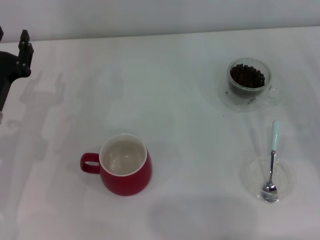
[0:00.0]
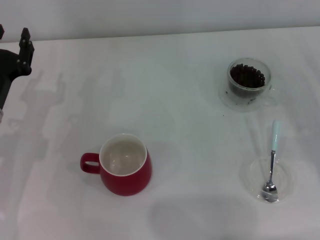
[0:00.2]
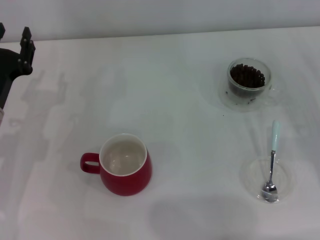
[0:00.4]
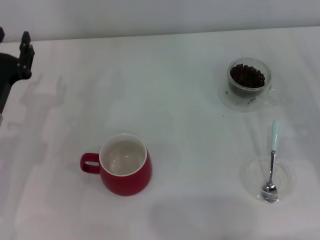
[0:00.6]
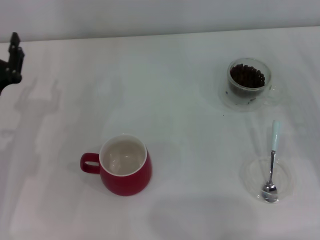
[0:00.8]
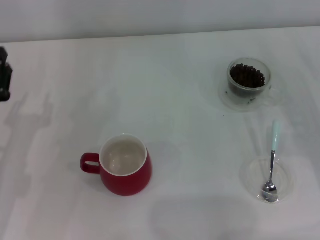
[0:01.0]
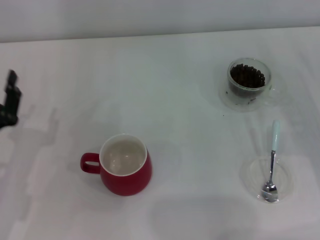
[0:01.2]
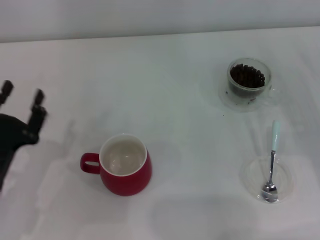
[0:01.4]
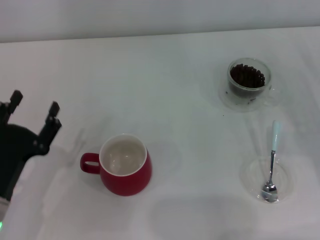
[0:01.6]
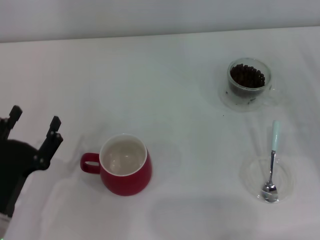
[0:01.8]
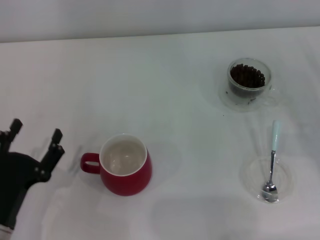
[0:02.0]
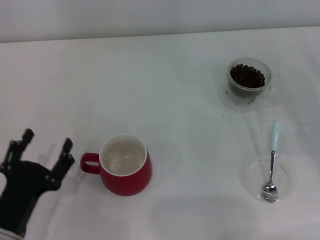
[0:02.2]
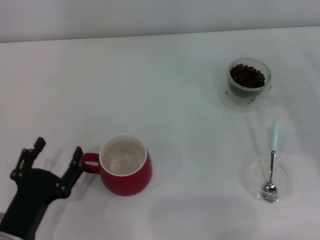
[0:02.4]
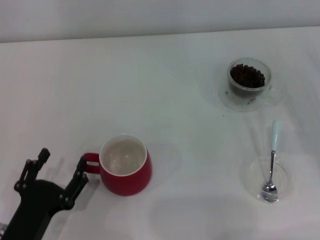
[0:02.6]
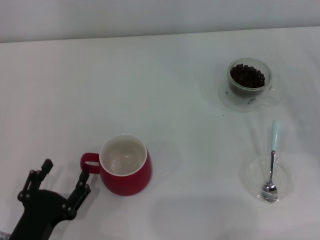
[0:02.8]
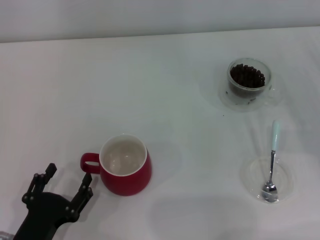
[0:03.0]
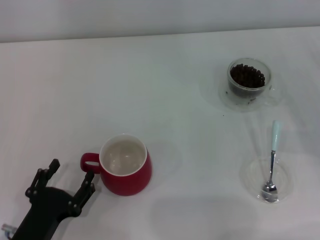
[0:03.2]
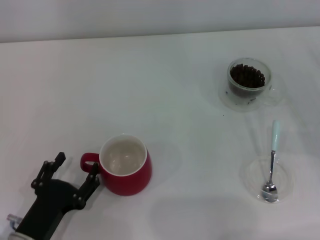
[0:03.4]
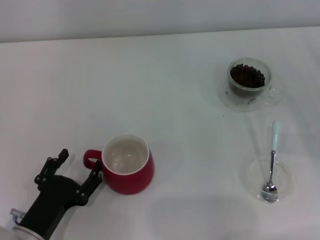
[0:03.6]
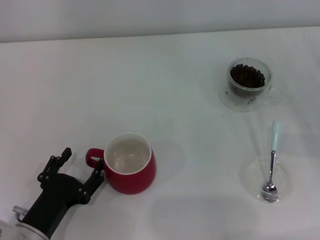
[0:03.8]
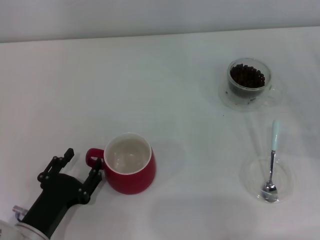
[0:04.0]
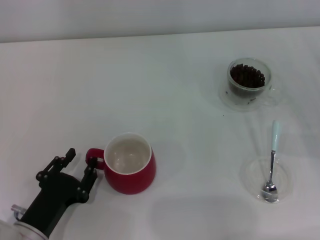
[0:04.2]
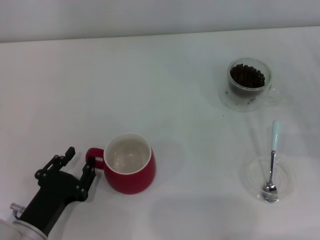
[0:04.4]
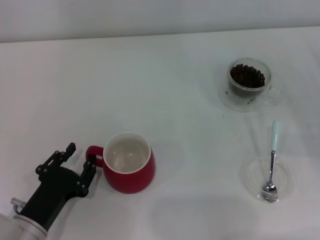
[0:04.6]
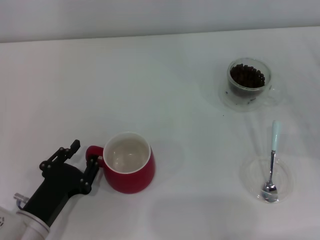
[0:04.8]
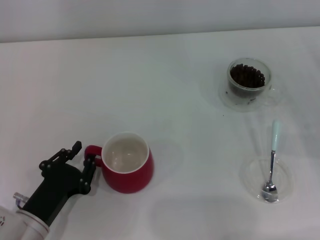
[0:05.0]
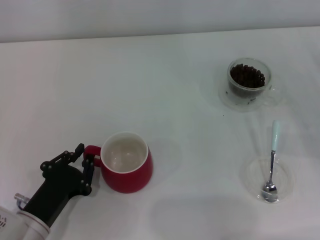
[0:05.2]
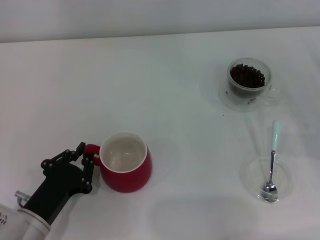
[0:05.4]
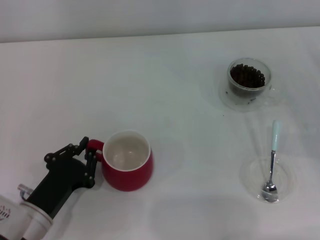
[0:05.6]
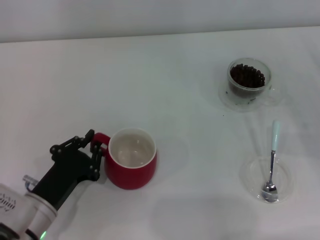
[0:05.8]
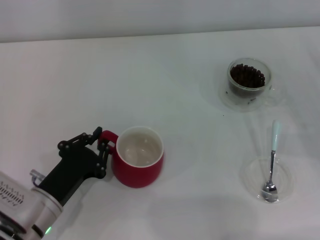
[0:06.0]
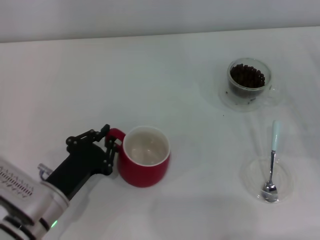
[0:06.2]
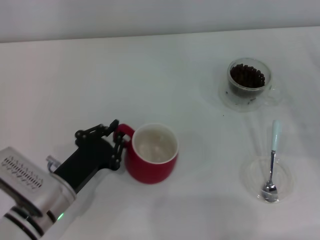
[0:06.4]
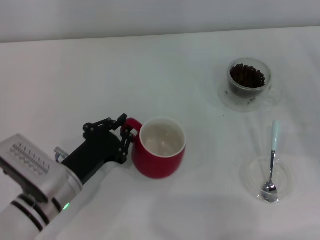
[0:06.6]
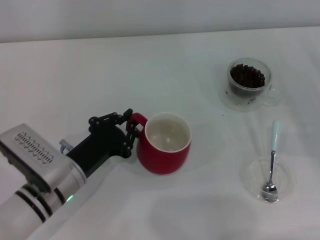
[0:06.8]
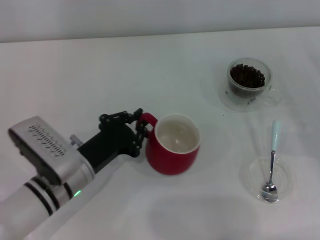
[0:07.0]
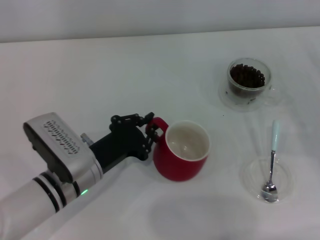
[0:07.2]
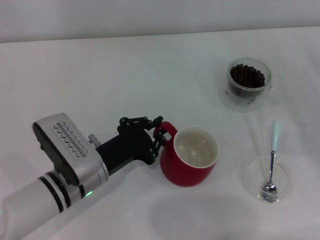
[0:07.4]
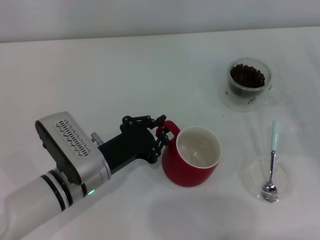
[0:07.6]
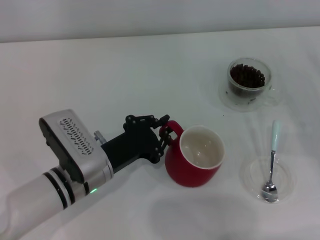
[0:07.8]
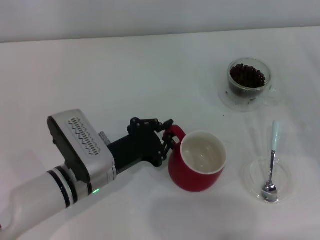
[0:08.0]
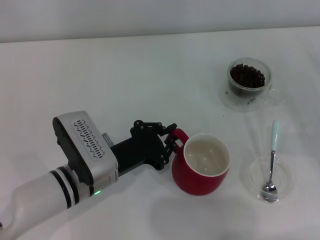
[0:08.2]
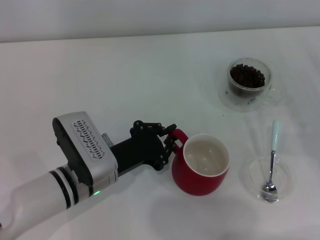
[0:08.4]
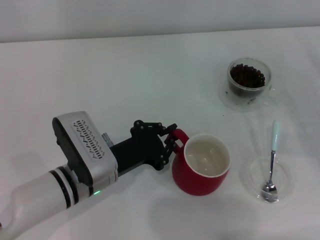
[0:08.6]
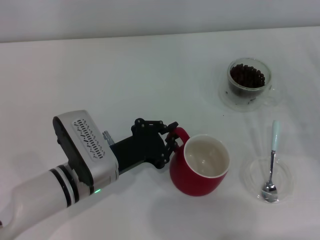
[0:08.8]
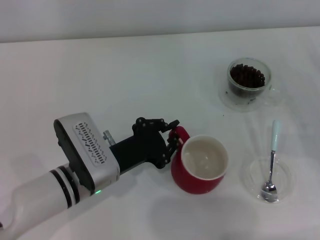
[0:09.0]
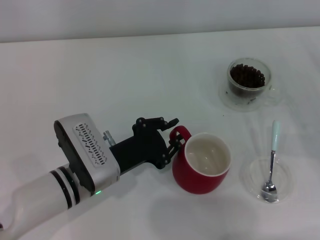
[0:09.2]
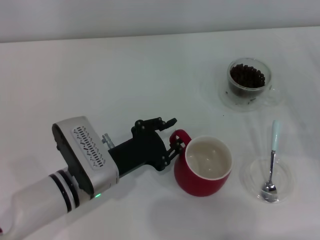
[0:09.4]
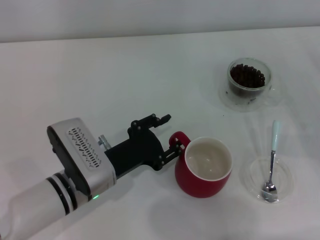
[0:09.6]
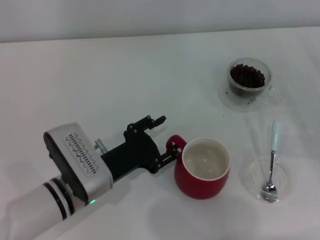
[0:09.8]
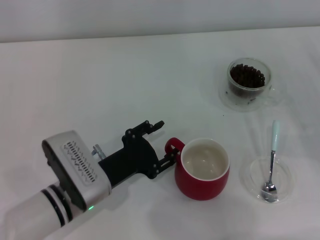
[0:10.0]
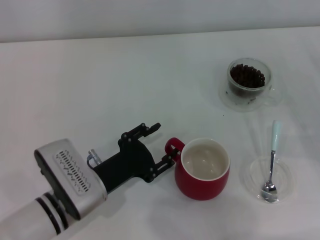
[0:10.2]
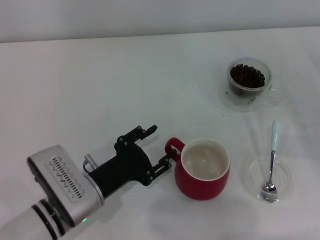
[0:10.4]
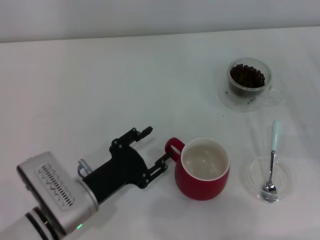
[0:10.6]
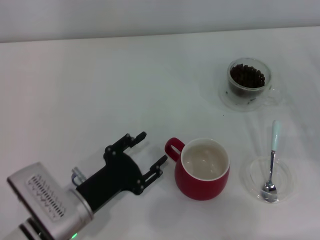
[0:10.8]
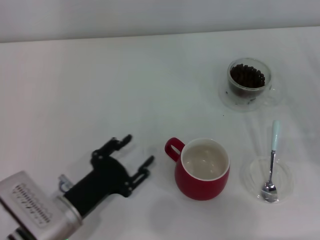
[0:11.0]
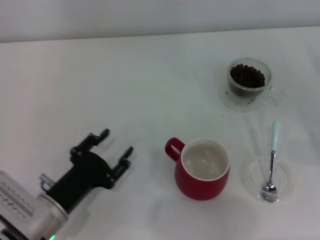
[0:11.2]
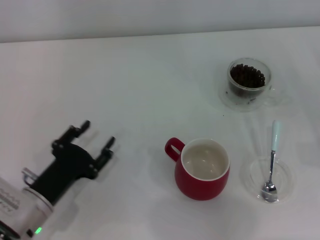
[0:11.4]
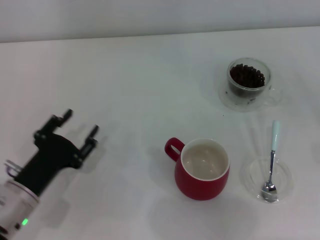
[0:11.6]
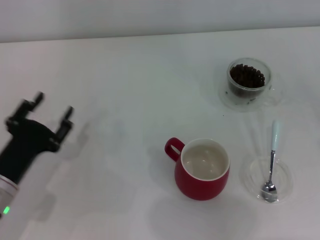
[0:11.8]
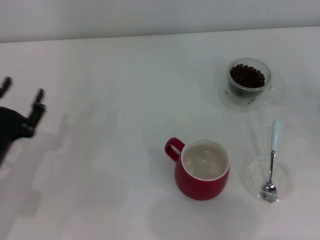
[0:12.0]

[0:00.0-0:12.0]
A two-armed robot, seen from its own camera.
Task of the whole recording: Use a blue spoon to take out the coffee beans from the glass and pour them into the red cup.
Step, 0:00.0 to 0:10.8: Move the cup to the center of view with the left gripper.
0:00.0 to 0:01.6: The left gripper travels backward by some 10 cm.
0:01.6 to 0:03.0: The left gripper heads backward, covering some 5 cm.
0:03.0 to 0:04.4: The left gripper closes its fingers.
0:04.4 to 0:06.0: The left gripper closes.
0:06.0 to 0:07.6: The left gripper is displaced to the right and forward by roughly 10 cm.
0:07.6 to 0:09.0: The grippers stay close to where they were, moving slightly.
0:09.0 to 0:10.4: The left gripper opens.
0:10.4 to 0:12.0: The right gripper shifts by about 5 cm. The left gripper travels to the left by some 10 cm.

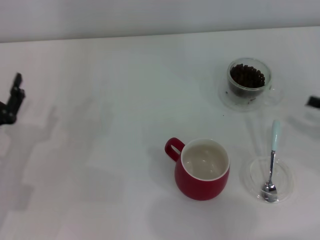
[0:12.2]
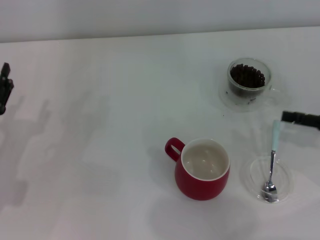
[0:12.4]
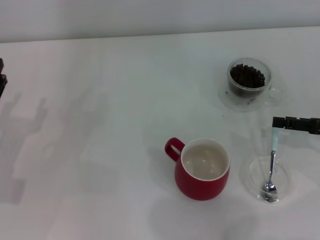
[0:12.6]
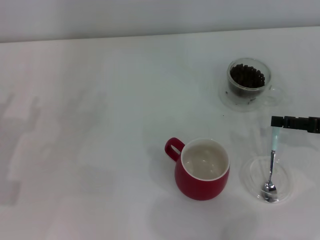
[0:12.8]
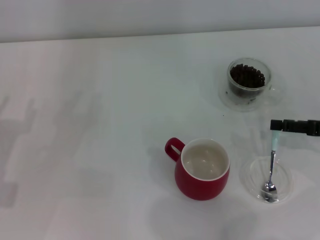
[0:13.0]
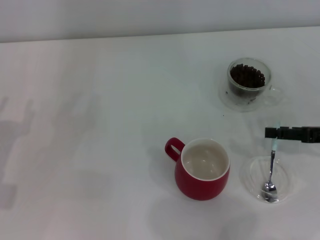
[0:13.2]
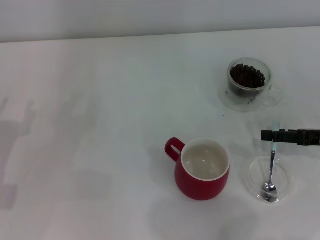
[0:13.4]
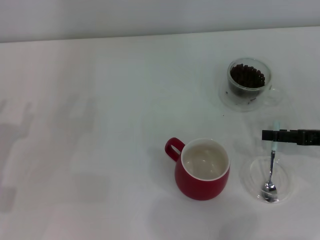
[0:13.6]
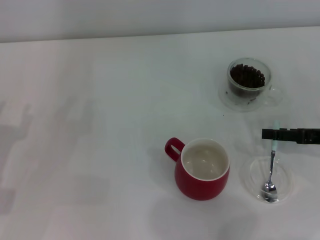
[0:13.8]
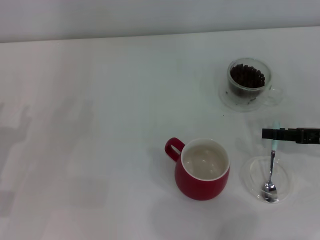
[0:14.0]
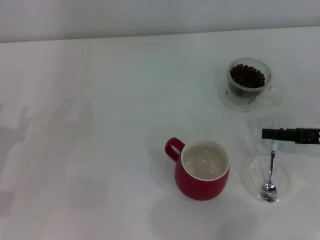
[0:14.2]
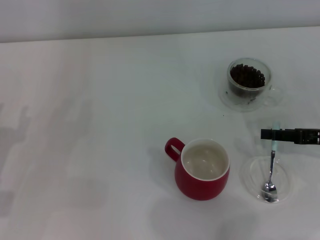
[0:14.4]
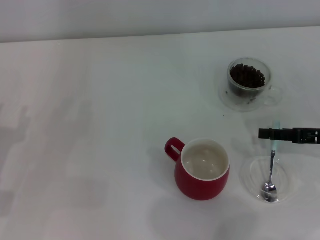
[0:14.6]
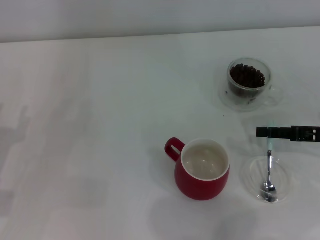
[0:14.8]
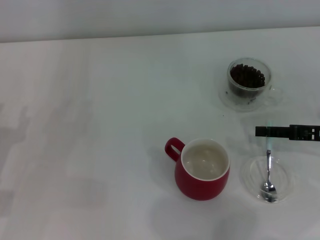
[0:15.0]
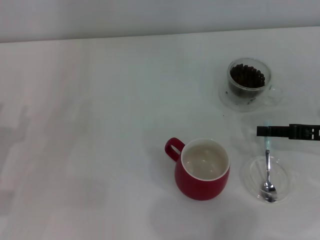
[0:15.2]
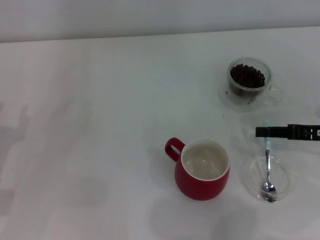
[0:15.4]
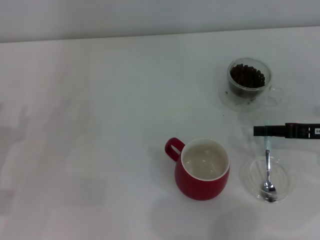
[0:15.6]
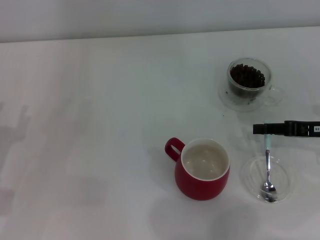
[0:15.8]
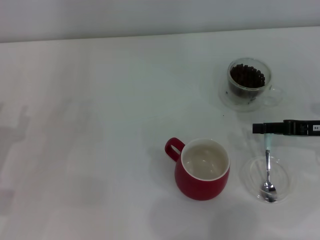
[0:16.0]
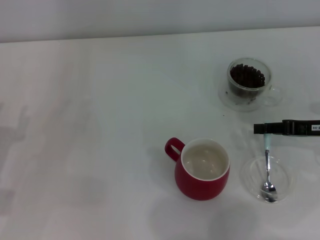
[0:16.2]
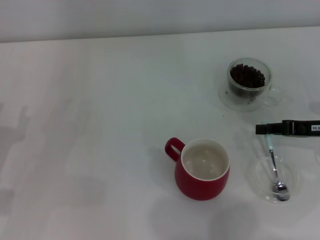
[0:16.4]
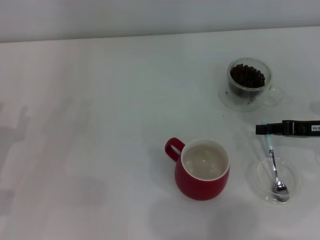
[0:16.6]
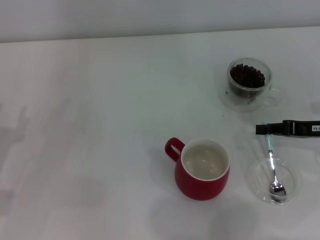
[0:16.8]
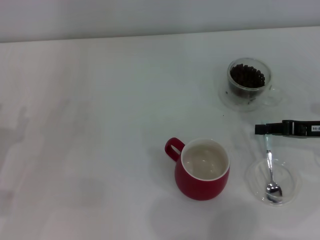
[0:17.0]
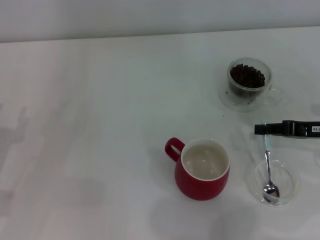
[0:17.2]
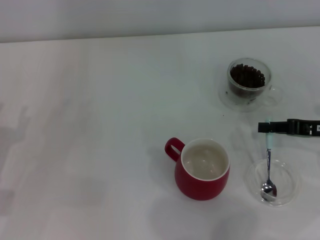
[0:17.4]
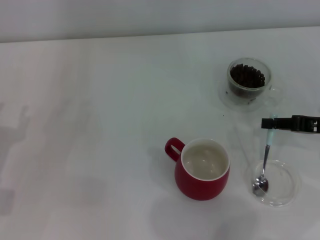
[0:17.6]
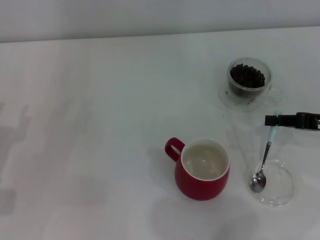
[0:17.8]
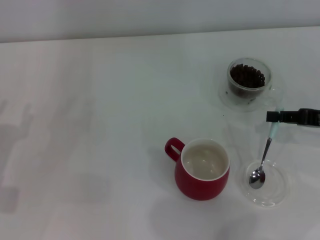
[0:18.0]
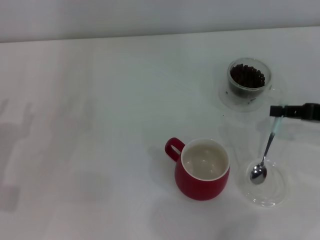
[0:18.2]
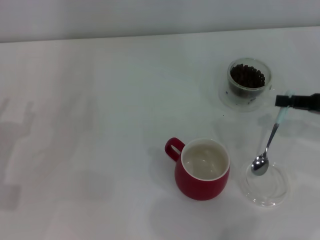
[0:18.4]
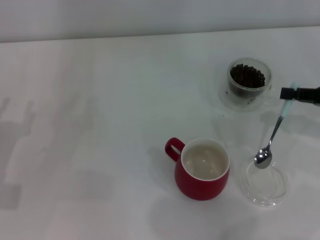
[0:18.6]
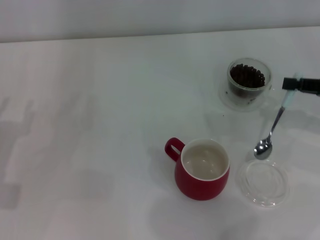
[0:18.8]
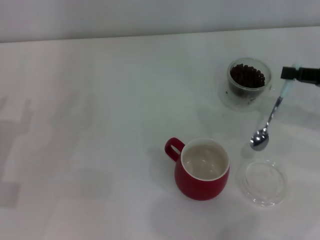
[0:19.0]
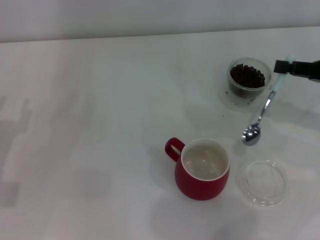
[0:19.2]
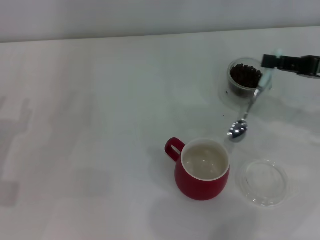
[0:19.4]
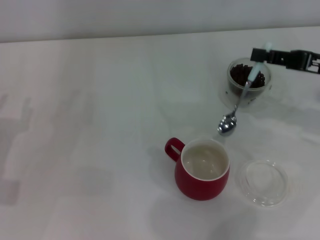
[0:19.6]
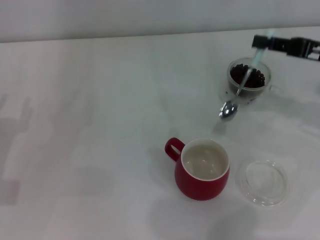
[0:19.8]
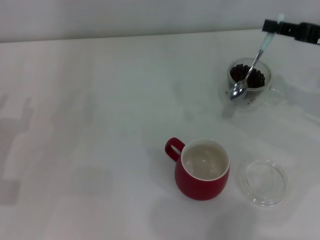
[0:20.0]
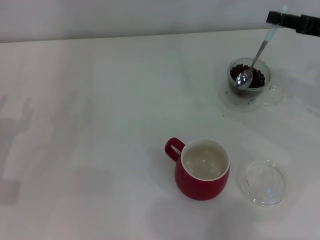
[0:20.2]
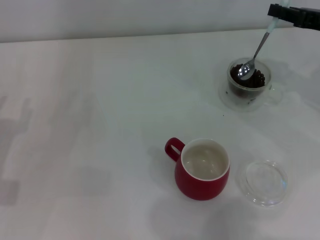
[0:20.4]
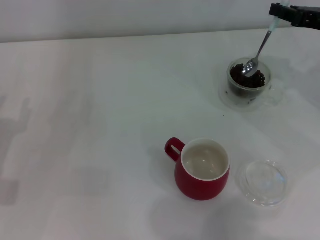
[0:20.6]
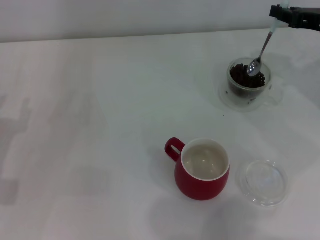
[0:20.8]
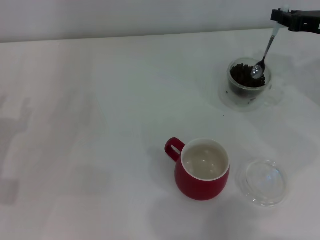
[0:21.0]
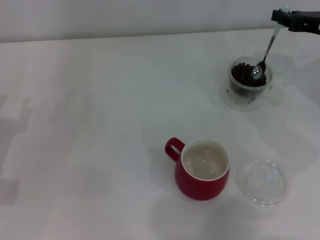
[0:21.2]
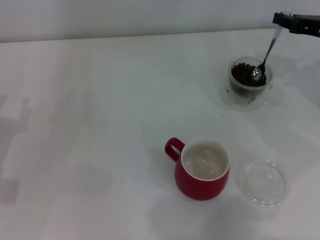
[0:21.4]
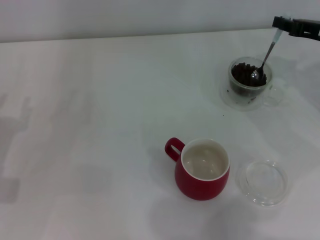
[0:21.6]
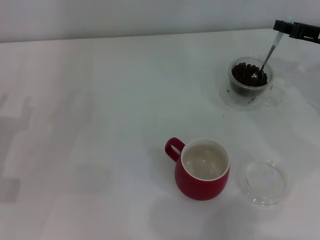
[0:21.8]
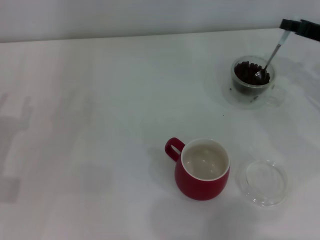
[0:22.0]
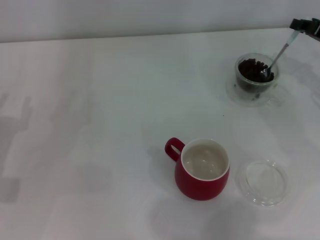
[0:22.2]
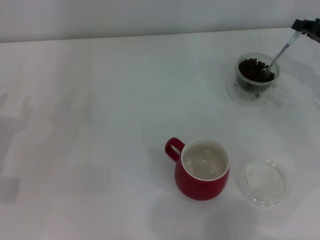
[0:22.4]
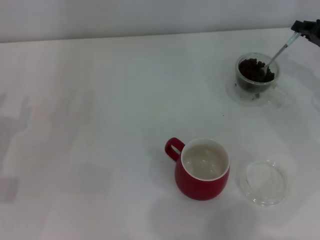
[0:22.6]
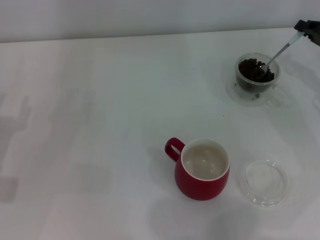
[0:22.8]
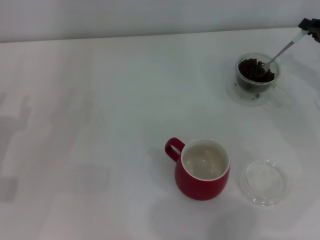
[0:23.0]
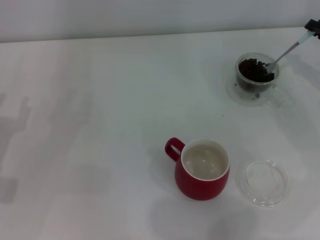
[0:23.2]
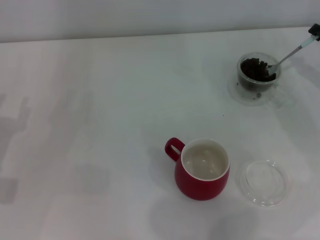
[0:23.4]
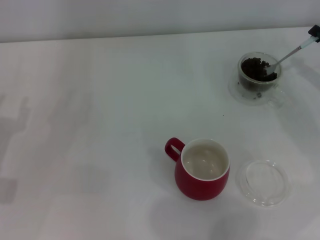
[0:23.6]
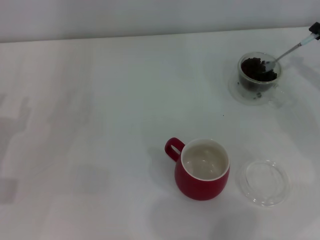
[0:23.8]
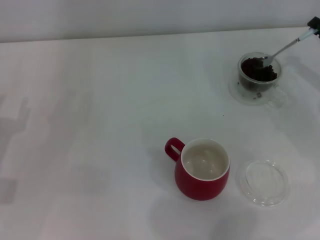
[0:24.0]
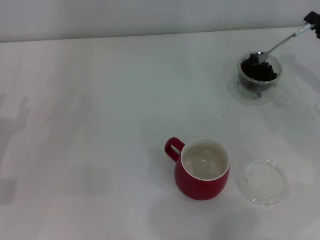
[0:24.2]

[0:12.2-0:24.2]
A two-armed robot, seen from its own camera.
Task of the whole recording: Use a blue spoon to take out the coffee beans from the glass and pour them into the red cup.
Step, 0:12.2 to 0:18.4: Pick up the spoon with the right gripper.
0:12.2 to 0:13.8: The right gripper ends up some 5 cm from where it was.
0:13.8 to 0:15.2: The right gripper closes.
0:15.2 to 0:16.6: The right gripper closes its fingers.
0:16.6 to 0:18.2: The grippers move only a little.
0:18.2 to 0:19.8: The right gripper goes some 5 cm upward.
0:19.8 to 0:21.2: The right gripper shifts approximately 5 cm forward.
0:21.2 to 0:22.6: The right gripper changes place by approximately 5 cm.
0:22.6 to 0:24.2: There are only small adjustments of the grippers.
